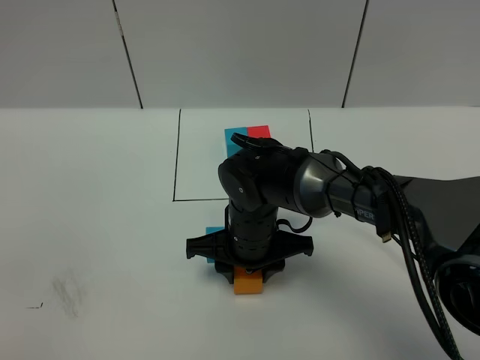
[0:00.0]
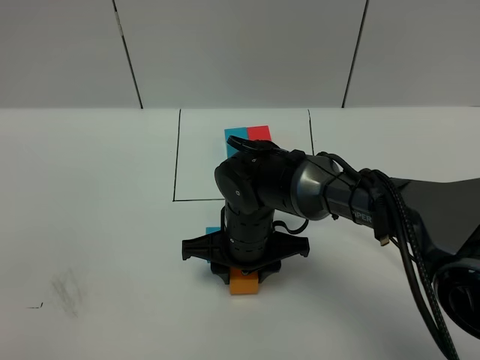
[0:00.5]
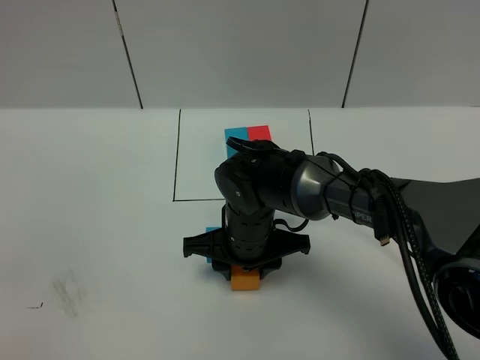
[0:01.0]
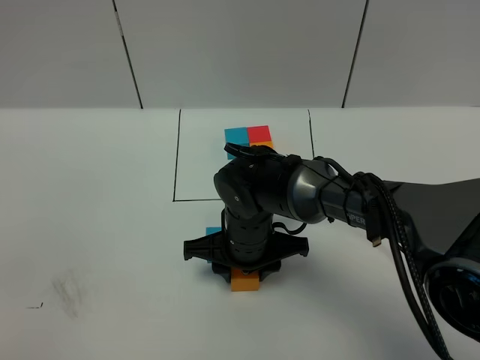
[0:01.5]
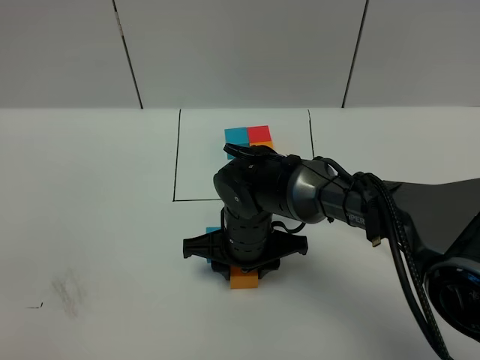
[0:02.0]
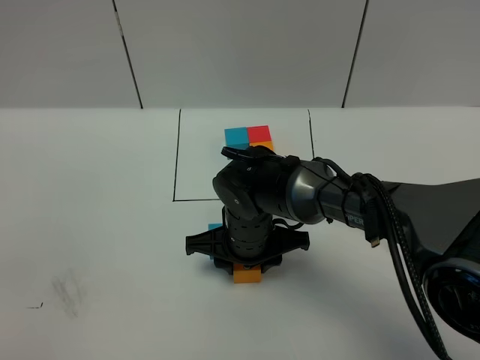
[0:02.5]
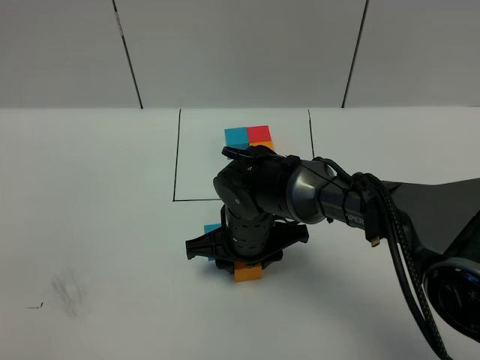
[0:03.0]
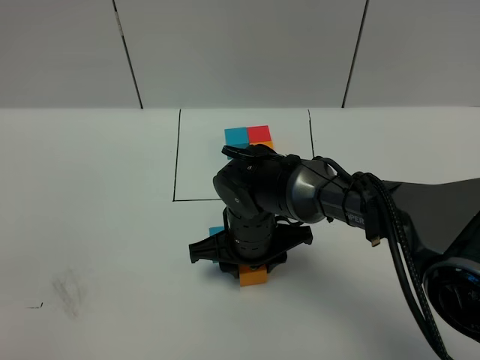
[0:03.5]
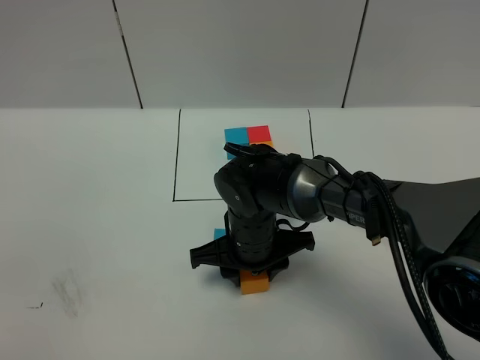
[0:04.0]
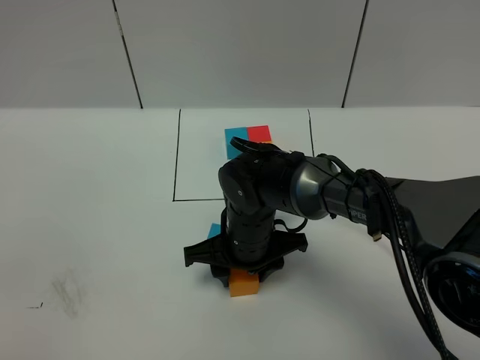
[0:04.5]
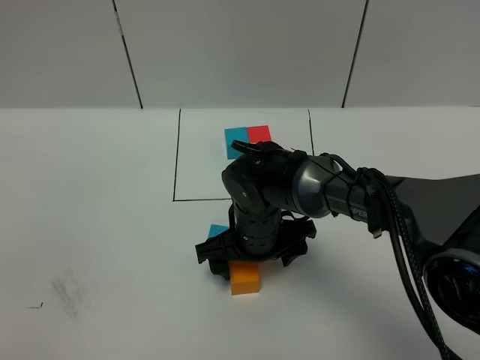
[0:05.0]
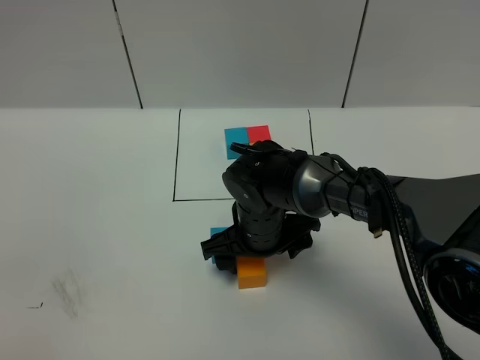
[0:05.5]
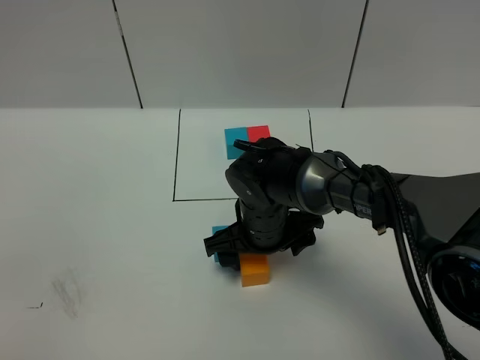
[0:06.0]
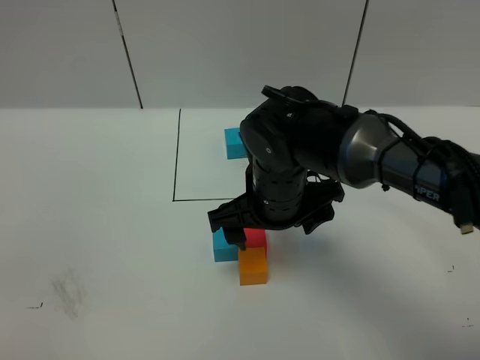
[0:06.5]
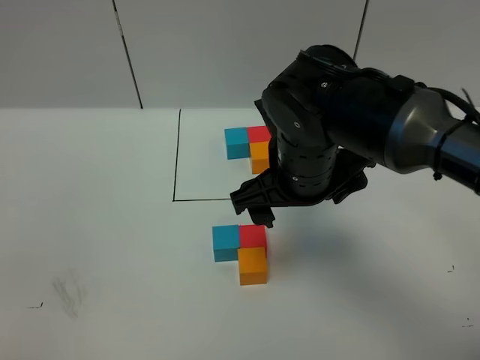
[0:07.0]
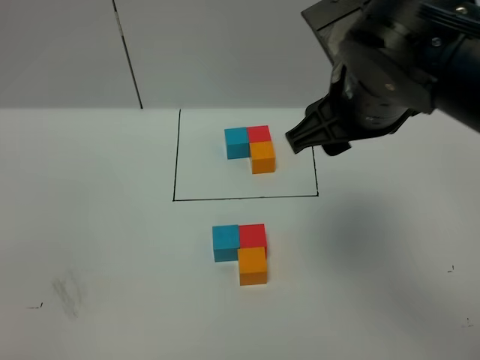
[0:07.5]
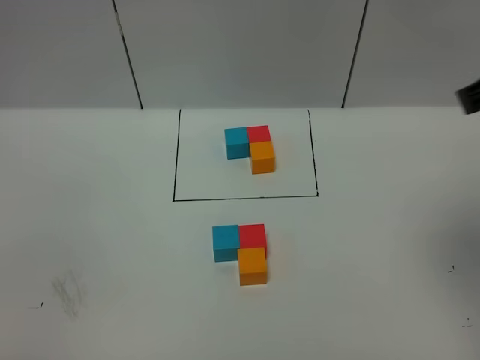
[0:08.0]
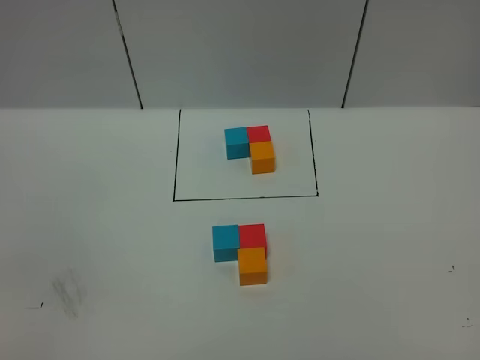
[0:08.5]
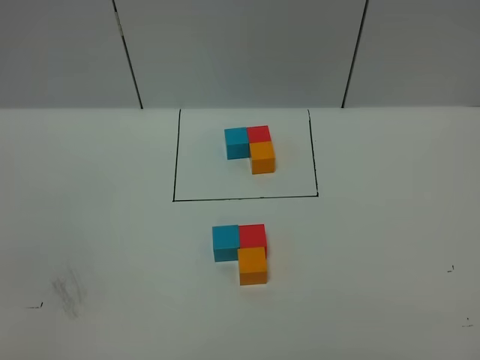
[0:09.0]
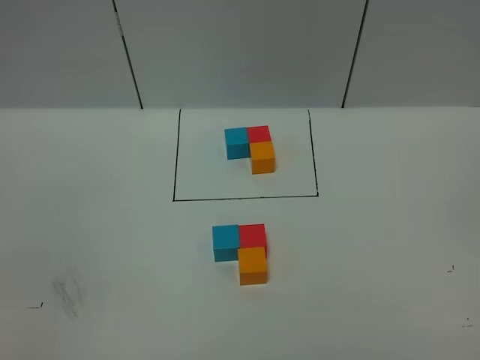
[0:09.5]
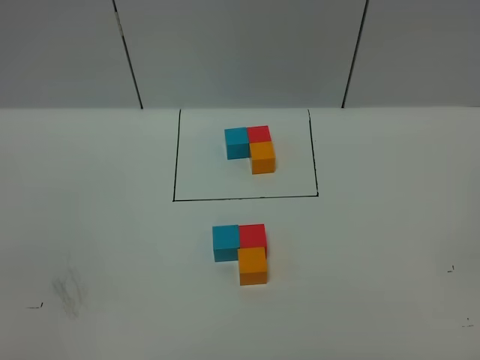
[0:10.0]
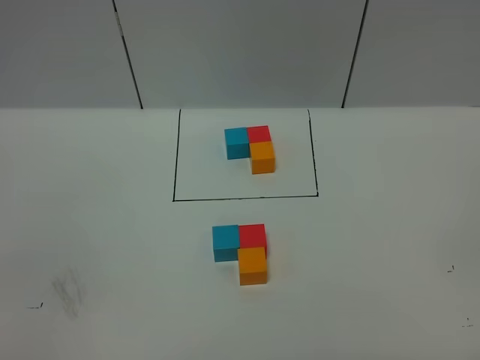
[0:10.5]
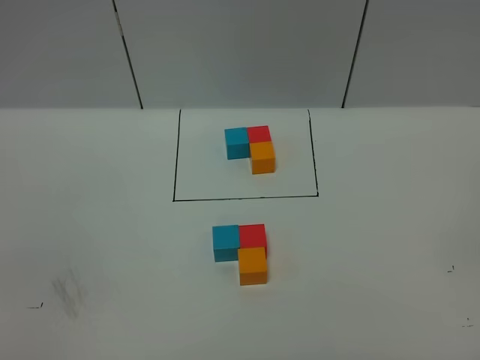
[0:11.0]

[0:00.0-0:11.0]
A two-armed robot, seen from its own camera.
Task of the whole recording: According to the building block template in front, assemble the scattered blocks together.
Step, 0:00.0 to 0:06.0: Put the orange cube in the front of the red cube.
0:00.0 to 0:02.0: Both grippers stay about where they are.
0:02.0 to 0:03.5: There are only small adjustments of the grippers.
0:03.5 to 0:05.5: The right gripper opens.
0:05.5 to 0:07.5: The right gripper moves upward, roughly 25 cm, and closes up.
0:07.5 to 0:09.0: The right gripper moves backward and to the right, approximately 35 cm, and opens up.

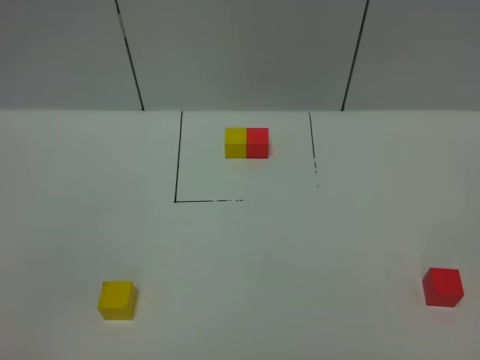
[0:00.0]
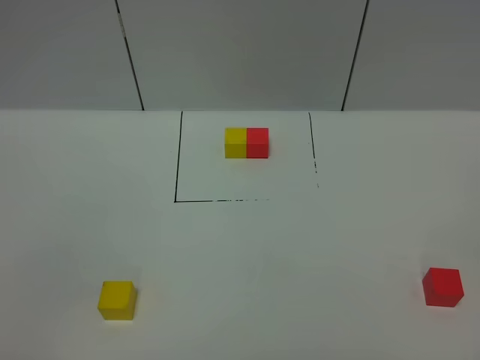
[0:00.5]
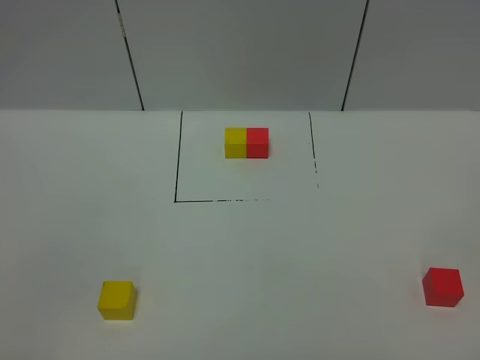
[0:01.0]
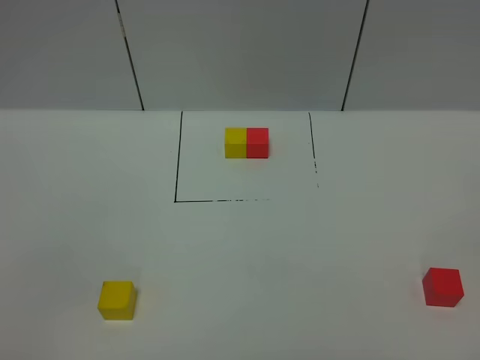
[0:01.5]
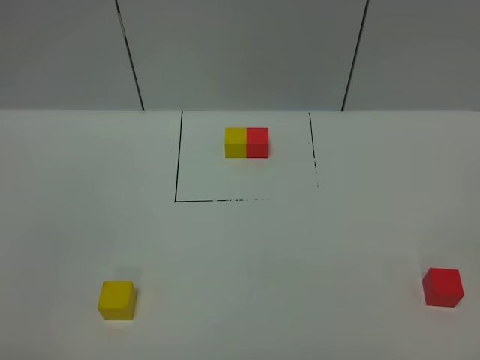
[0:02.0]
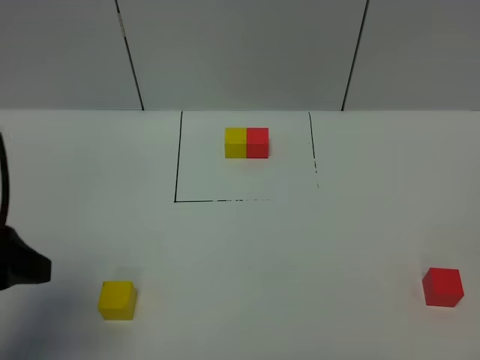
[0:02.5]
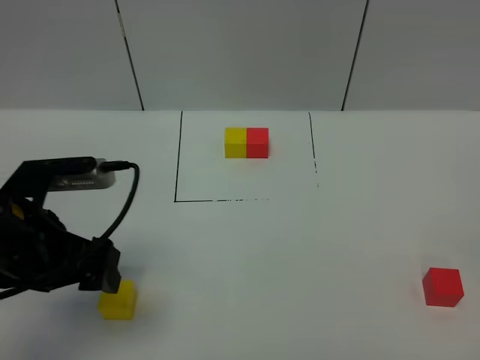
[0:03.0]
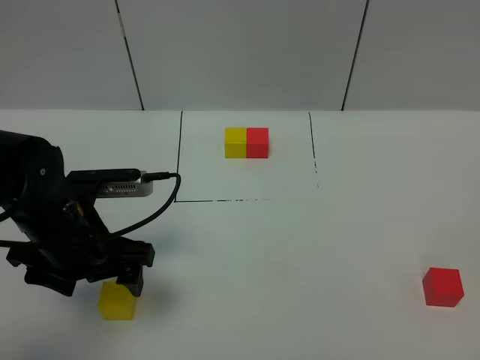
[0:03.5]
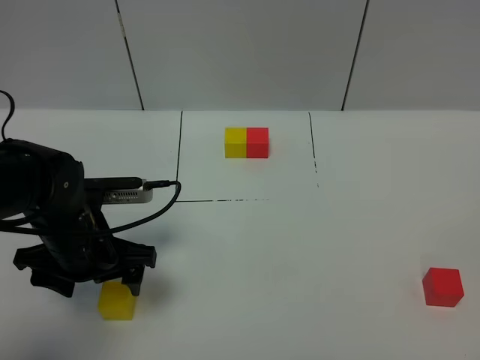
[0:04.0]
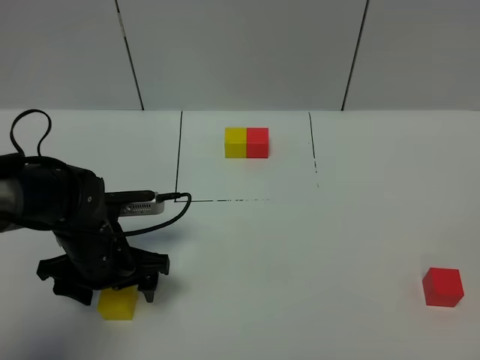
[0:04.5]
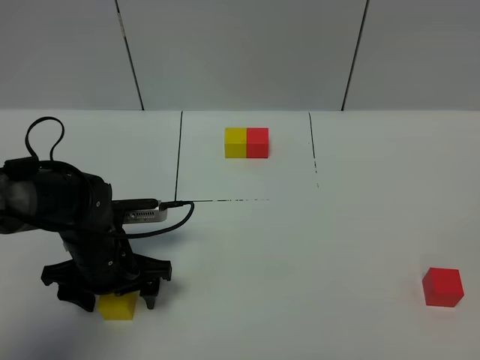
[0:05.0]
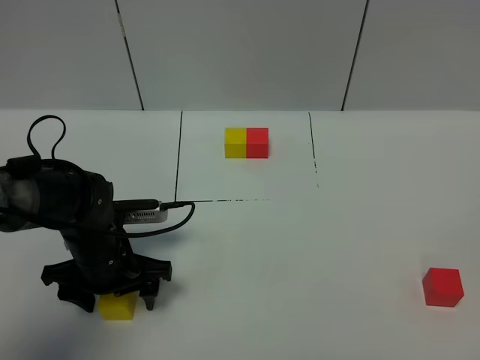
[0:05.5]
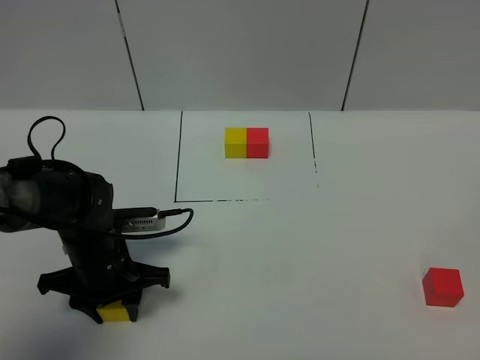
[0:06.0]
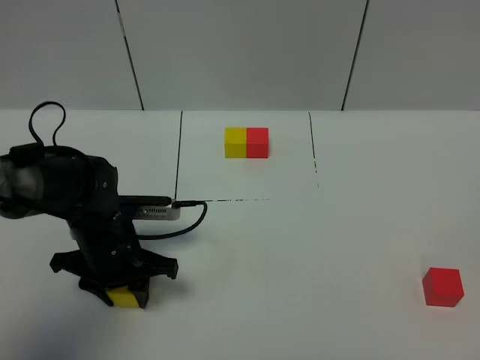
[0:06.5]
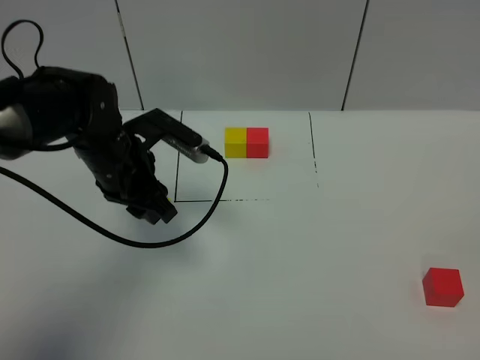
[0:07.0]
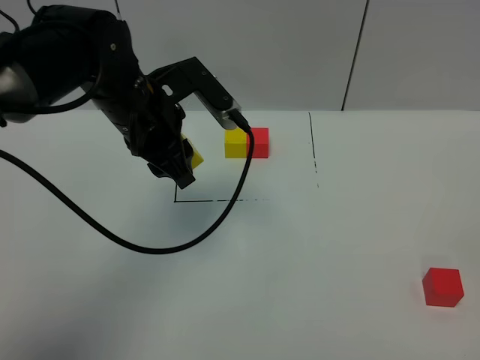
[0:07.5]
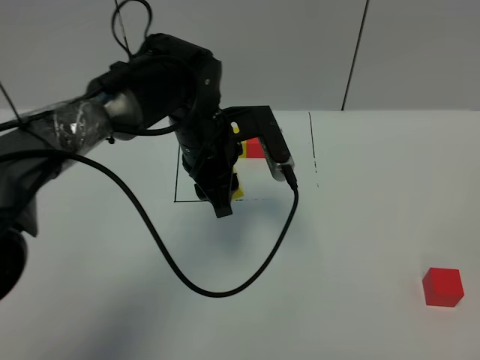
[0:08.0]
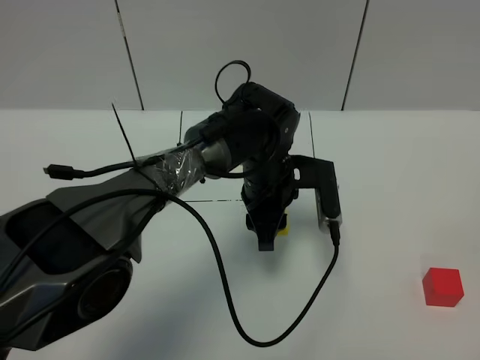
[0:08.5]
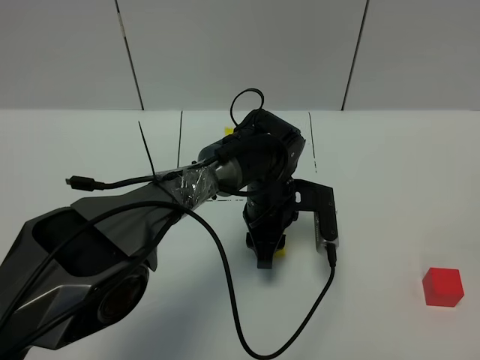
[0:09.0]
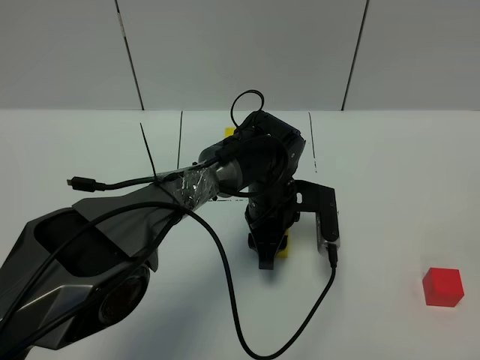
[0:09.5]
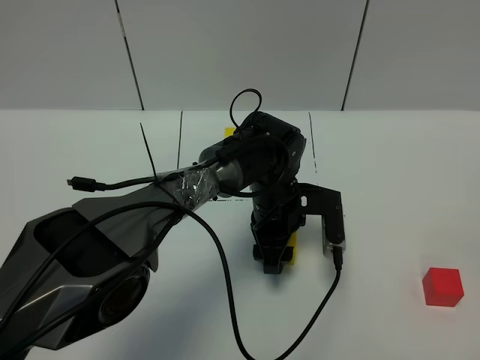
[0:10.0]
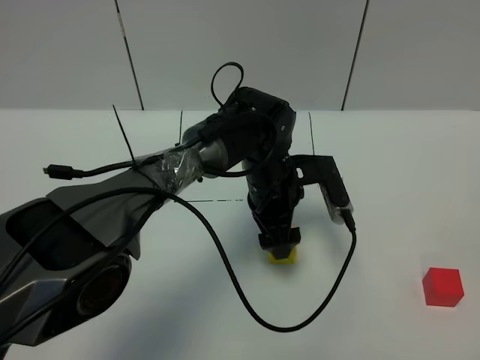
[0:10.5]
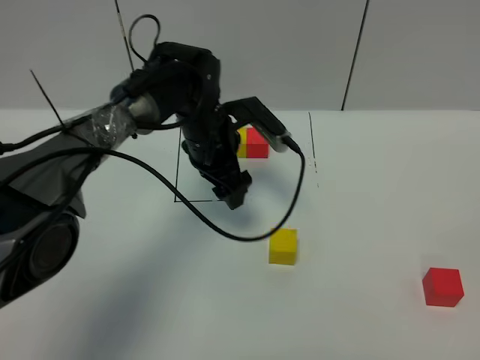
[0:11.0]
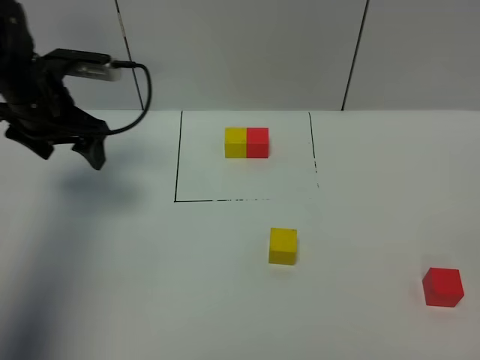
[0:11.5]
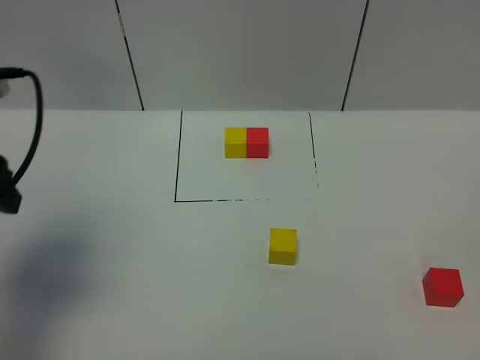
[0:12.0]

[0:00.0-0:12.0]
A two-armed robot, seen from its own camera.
Task of the whole recording: According to the building block template in front, assemble the scattered blocks together.
Step, 0:02.5 to 0:10.5: Put the yellow cube in the center of the table.
0:02.0 to 0:04.0: The left gripper travels forward and downward by approximately 30 cm.
0:04.0 to 0:06.0: The left gripper goes approximately 5 cm downward, and closes its fingers.
0:06.0 to 0:08.0: The left gripper travels to the right, upward and forward by roughly 20 cm.
0:08.0 to 0:10.0: The left gripper is displaced downward and to the right by roughly 15 cm, and opens its fingers.
0:10.0 to 0:12.0: The left gripper travels to the left, upward and backward by some 40 cm.

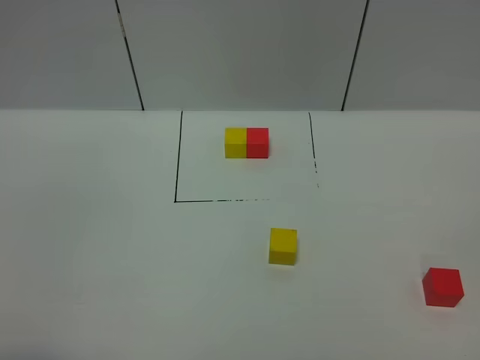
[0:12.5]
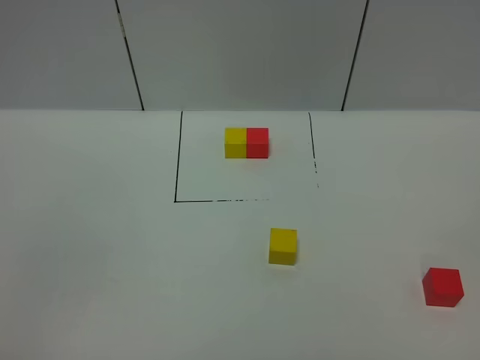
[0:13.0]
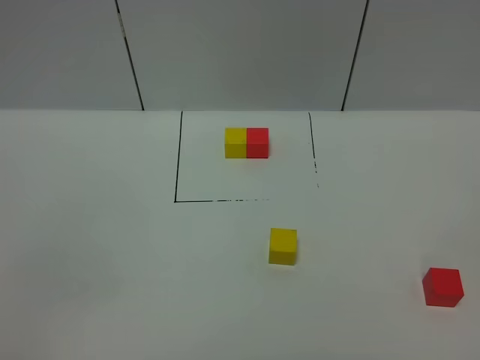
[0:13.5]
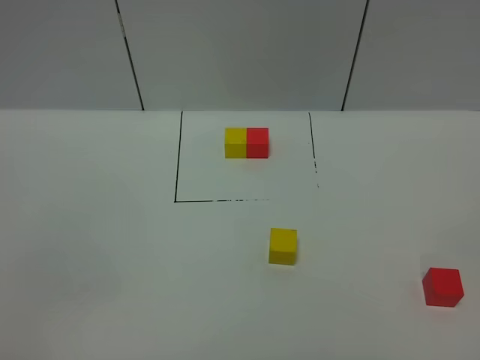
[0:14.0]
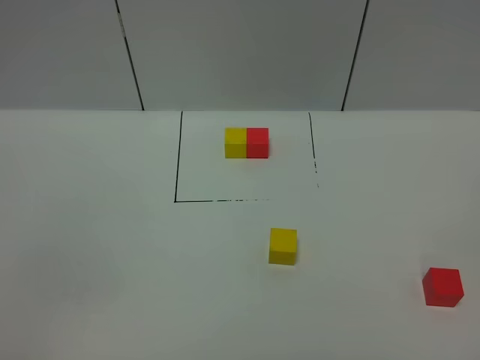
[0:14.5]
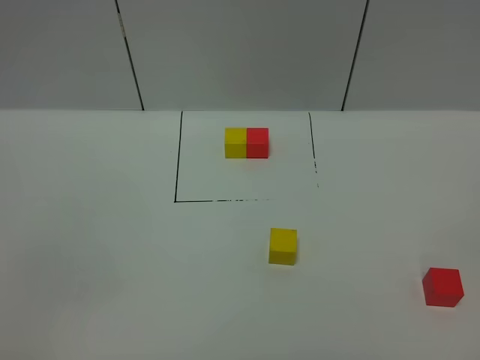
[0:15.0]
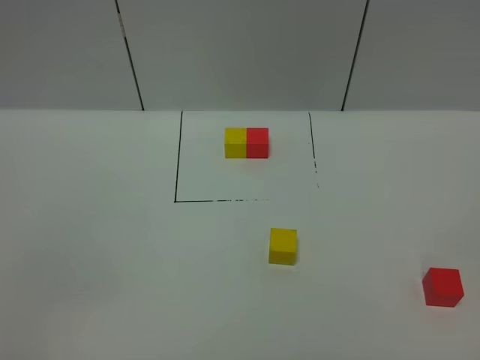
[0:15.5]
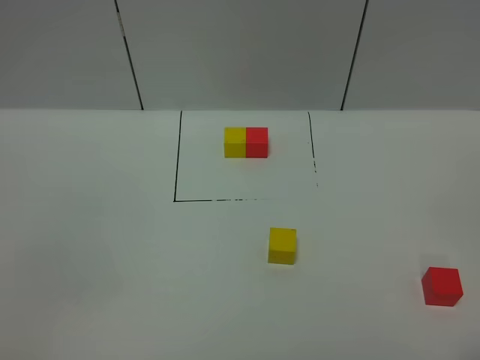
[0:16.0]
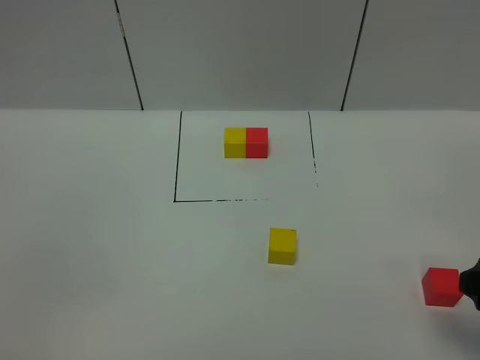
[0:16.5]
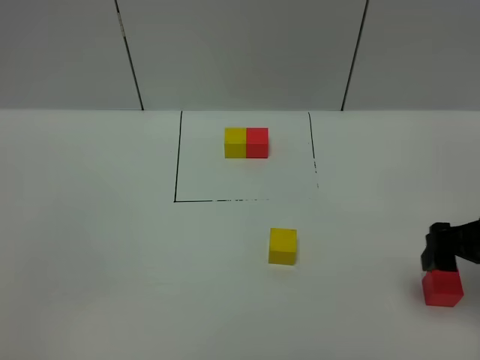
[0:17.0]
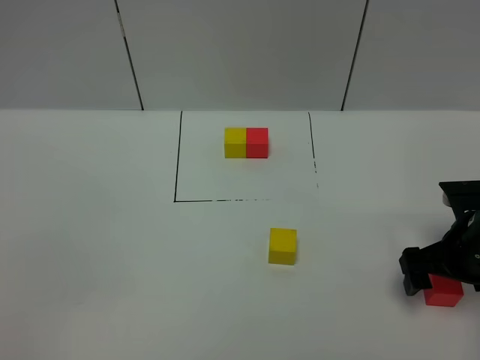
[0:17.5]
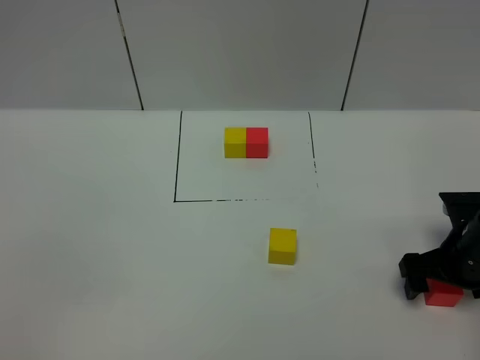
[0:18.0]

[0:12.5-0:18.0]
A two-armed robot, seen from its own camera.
Task of the whole recording: According to the building block template in front, assemble the scattered blocks together.
0:16.0 to 0:18.0: The right gripper shifts approximately 30 cm forward and downward.